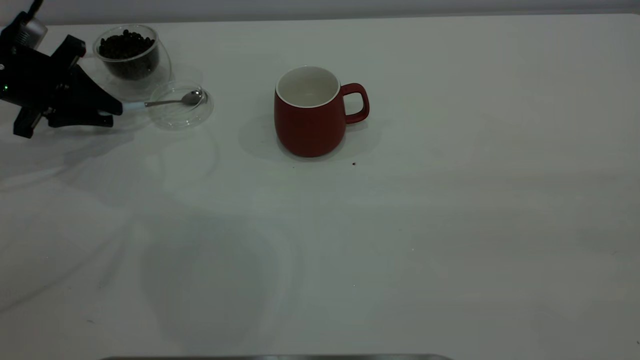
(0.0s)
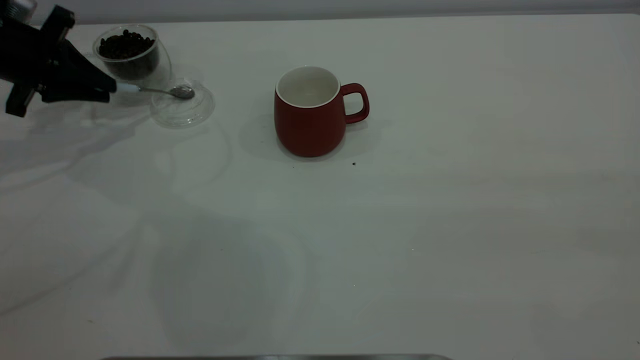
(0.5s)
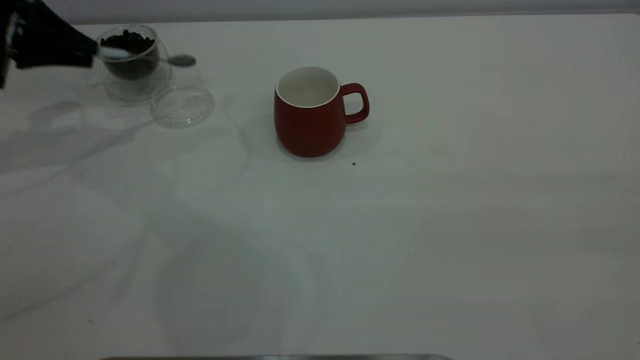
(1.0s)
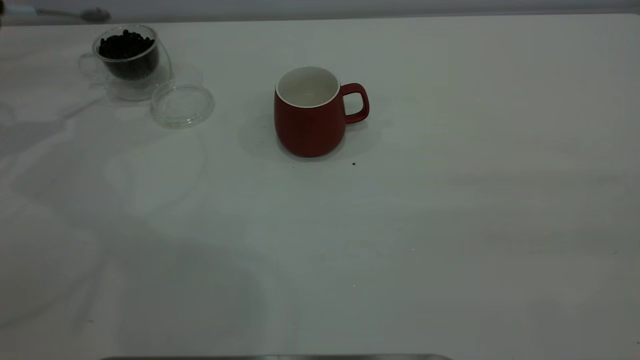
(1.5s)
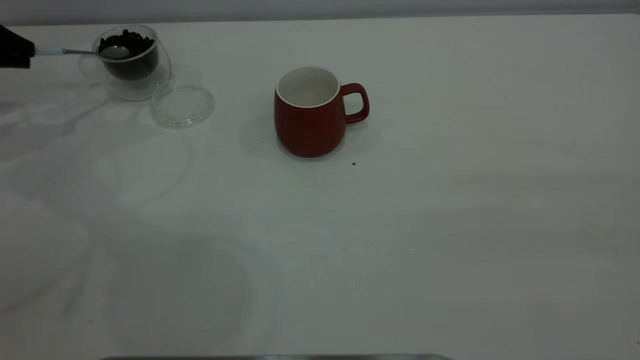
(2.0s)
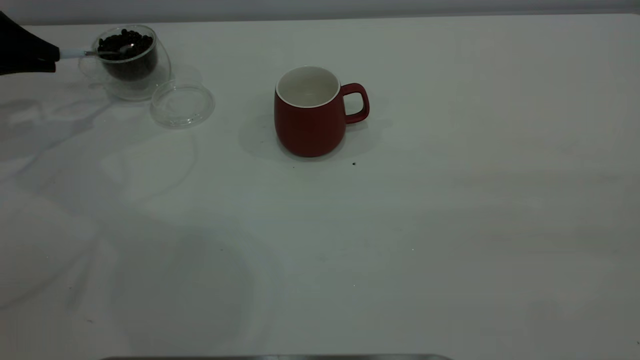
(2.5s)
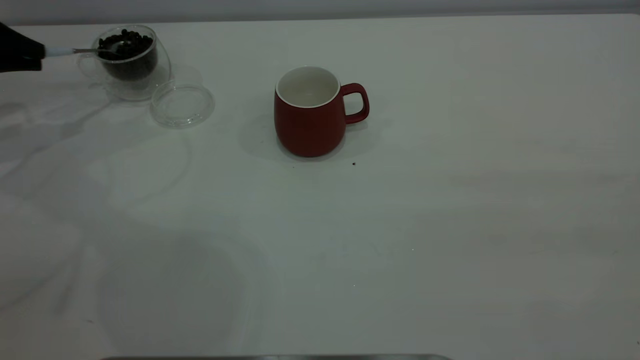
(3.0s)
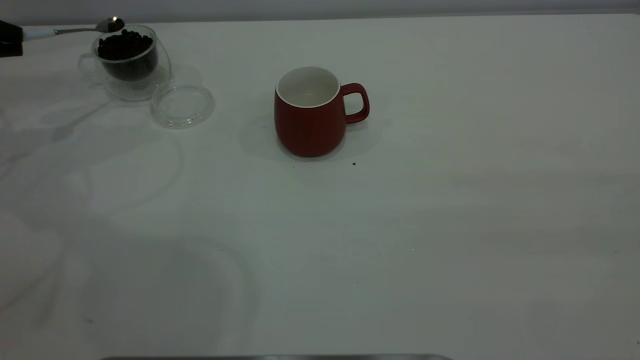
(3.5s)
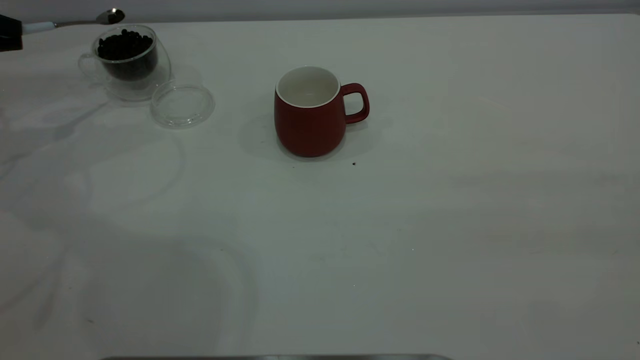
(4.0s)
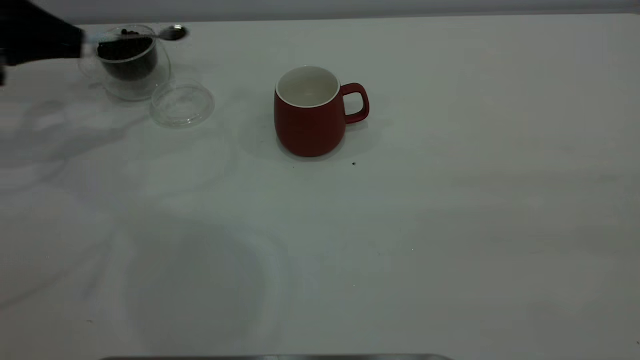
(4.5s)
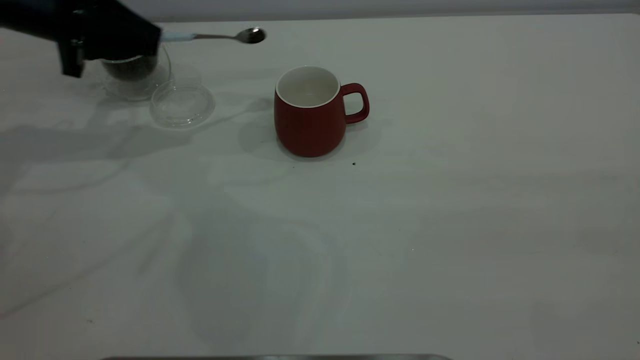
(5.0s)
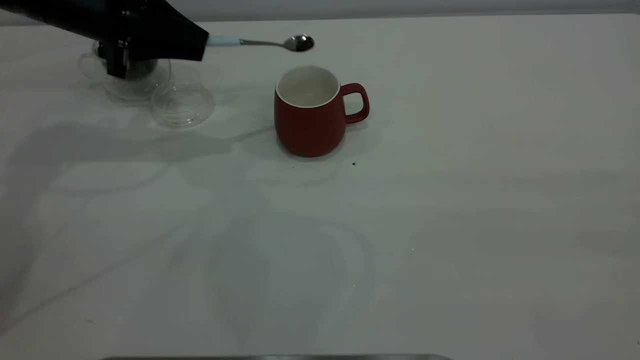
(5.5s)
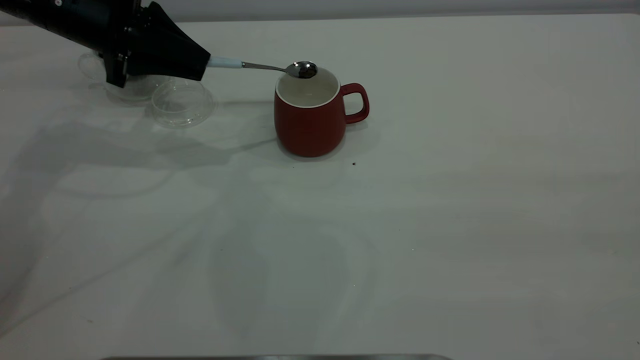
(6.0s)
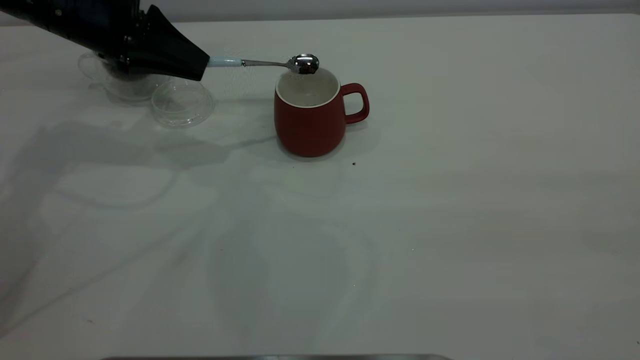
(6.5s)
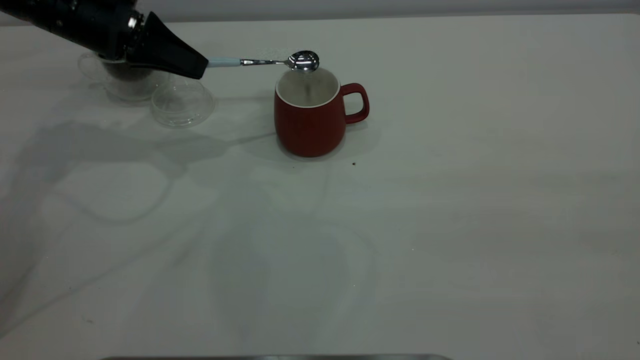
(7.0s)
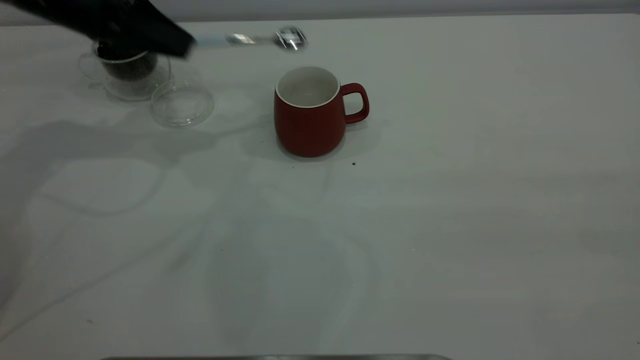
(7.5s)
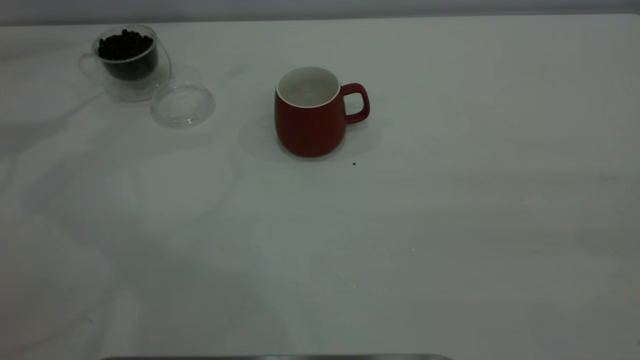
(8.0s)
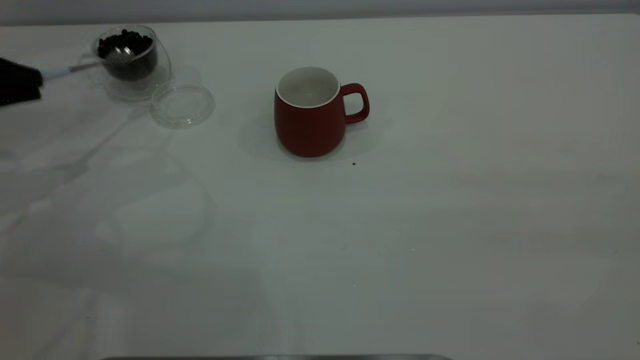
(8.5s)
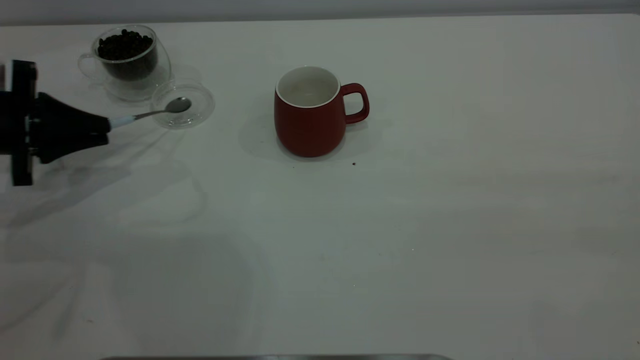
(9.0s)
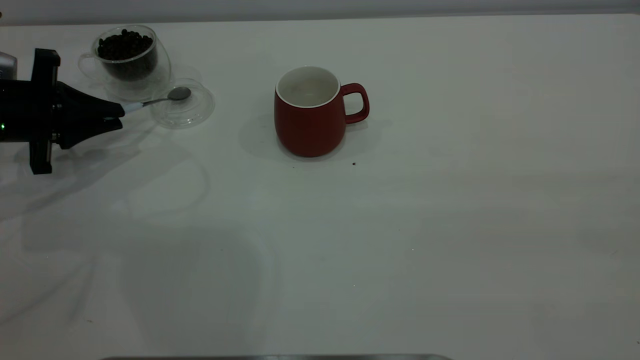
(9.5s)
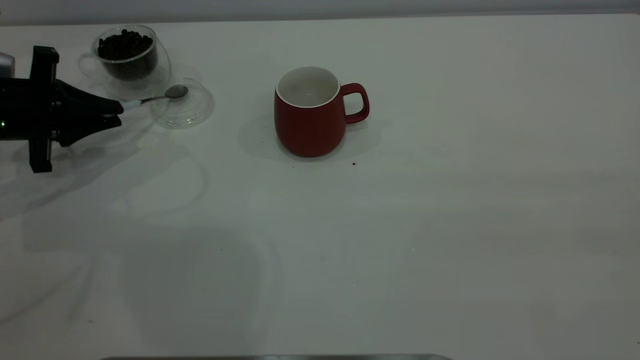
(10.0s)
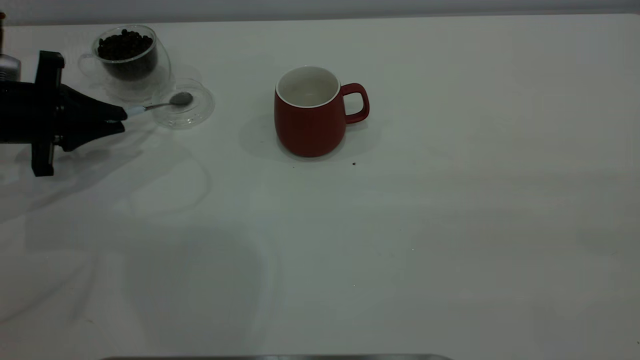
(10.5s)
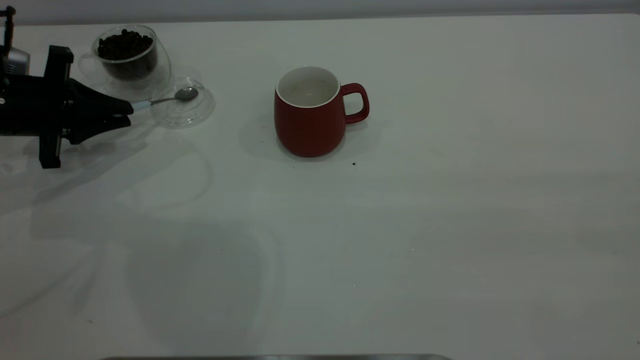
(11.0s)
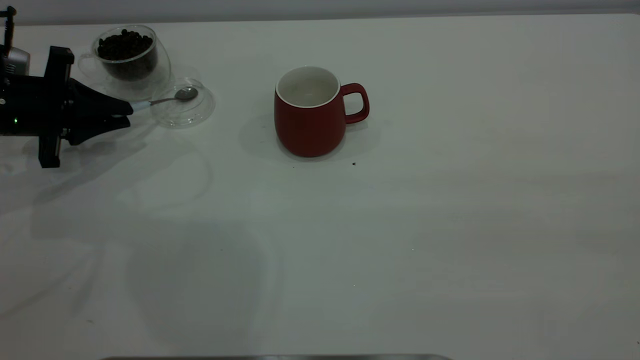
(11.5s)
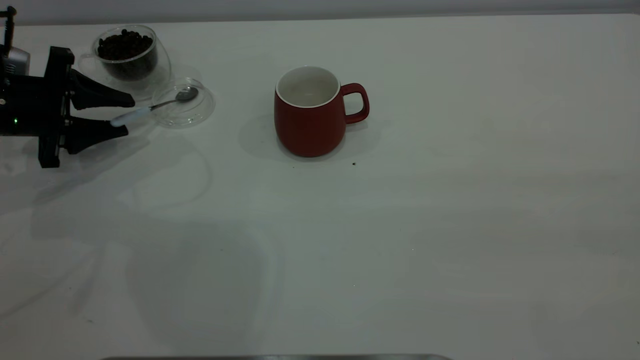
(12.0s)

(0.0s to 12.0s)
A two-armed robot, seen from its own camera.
Task of the whole recording: the right gripper place the red cup in the center of the table, the left gripper take the blue spoon from the cup lid and scoop out the coffee beans from the coffee cup and put them into the red cup, the left gripper put the spoon back into the cup lid.
Step, 1.0s - 7.0s: Scoop a spoonful of beans into the cup.
0.0s - 2.0s: The left gripper moves to the left and upward, approximately 10 cm.
4.0s - 6.0s: The left gripper is displaced to the right by approximately 20 cm.
6.0s - 8.0s: The left gripper shifts some 20 cm to the left and upward.
8.0s - 10.0s: The left gripper is displaced downward and to the right by approximately 20 cm.
10.0s - 12.0s: The left gripper opens its fingers.

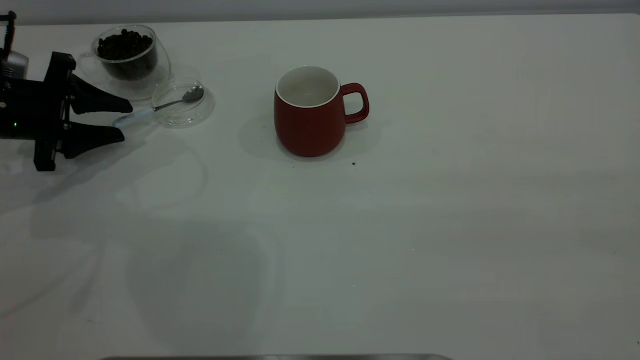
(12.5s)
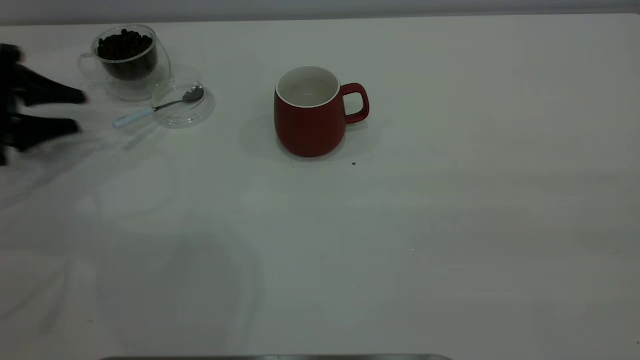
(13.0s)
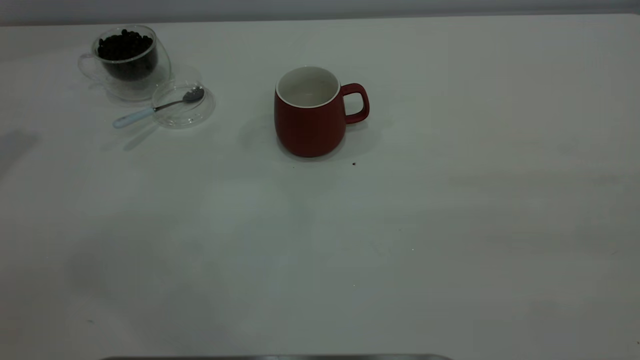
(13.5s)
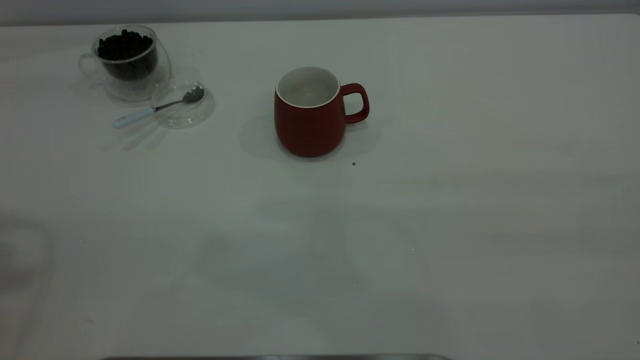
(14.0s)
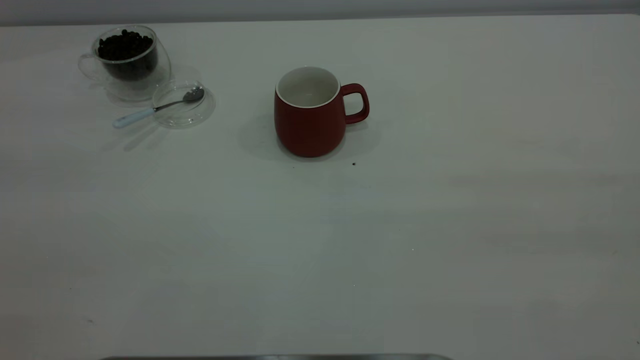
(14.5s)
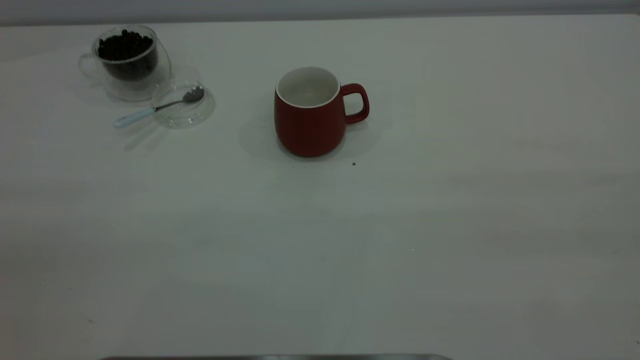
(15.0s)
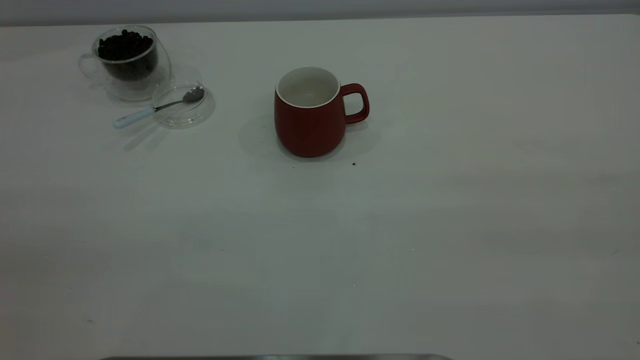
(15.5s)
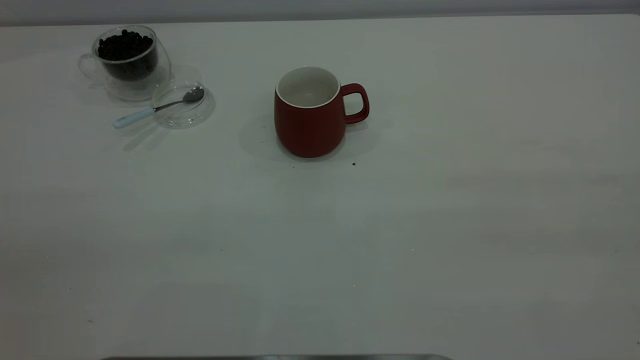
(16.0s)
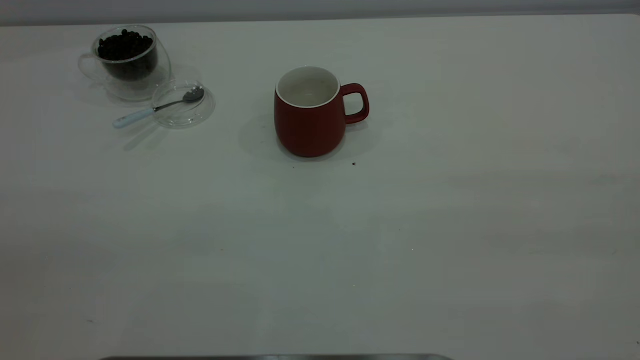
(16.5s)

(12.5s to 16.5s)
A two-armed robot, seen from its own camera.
Task of the whole recording: the right gripper place the red cup in the center of the table, the left gripper take the blue spoon from the cup lid and scoop out the coffee beans from the coffee cup and put them into the red cup, the left gripper put the spoon back into the cup lid.
12.5s - 14.5s: The left gripper is displaced upward and backward by some 50 cm.

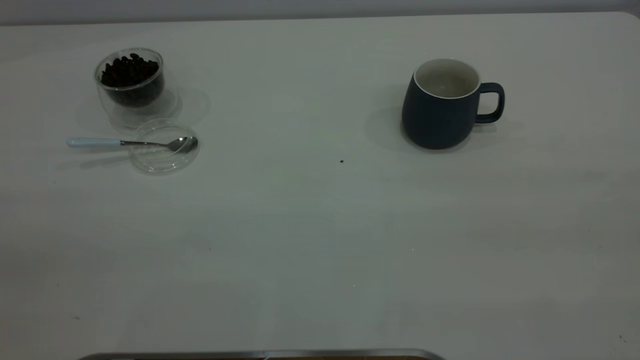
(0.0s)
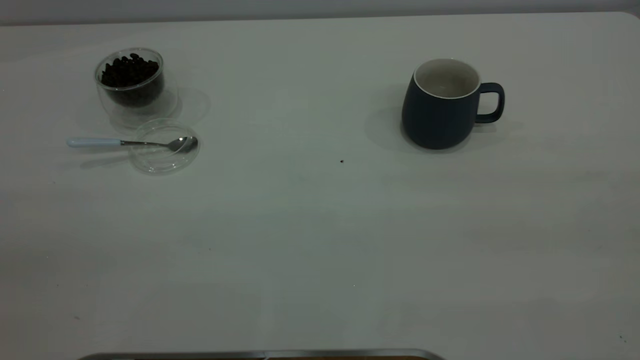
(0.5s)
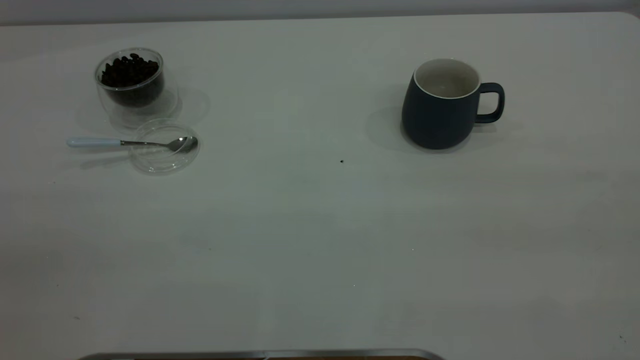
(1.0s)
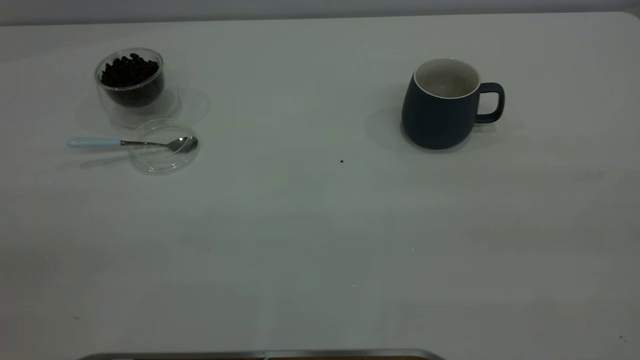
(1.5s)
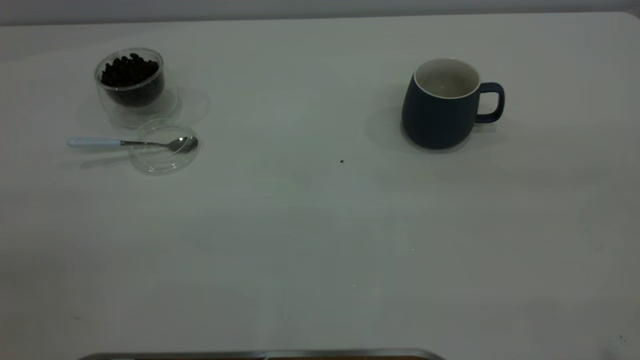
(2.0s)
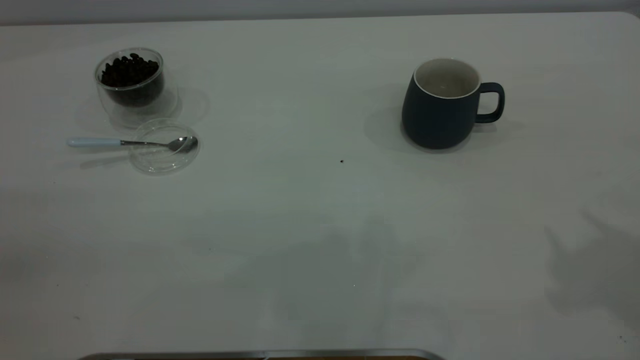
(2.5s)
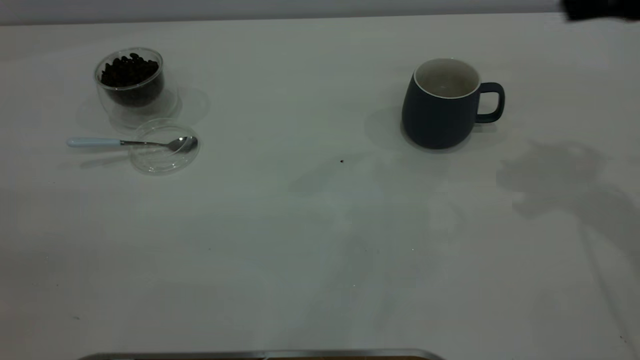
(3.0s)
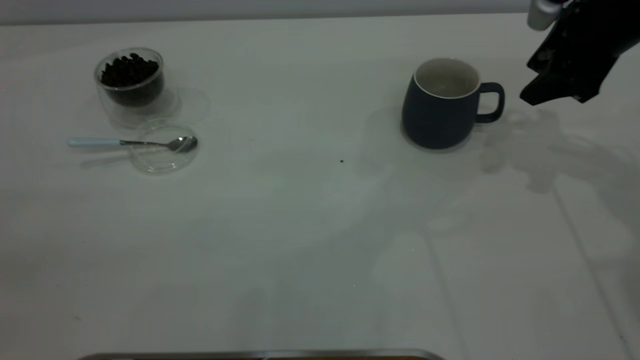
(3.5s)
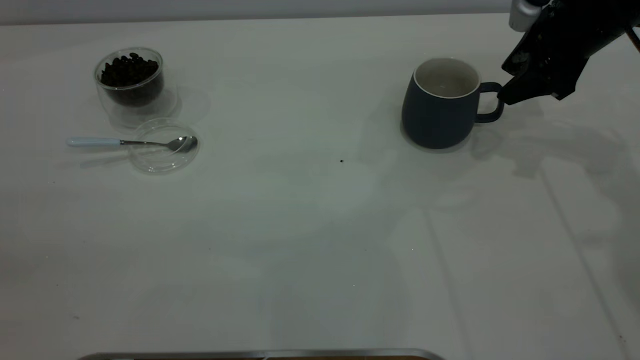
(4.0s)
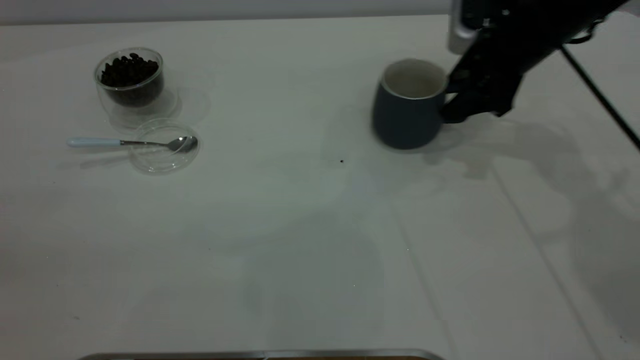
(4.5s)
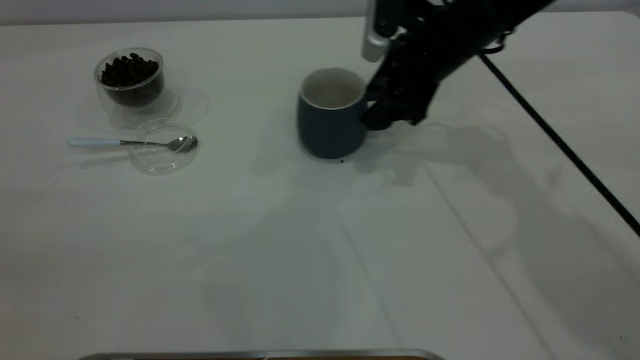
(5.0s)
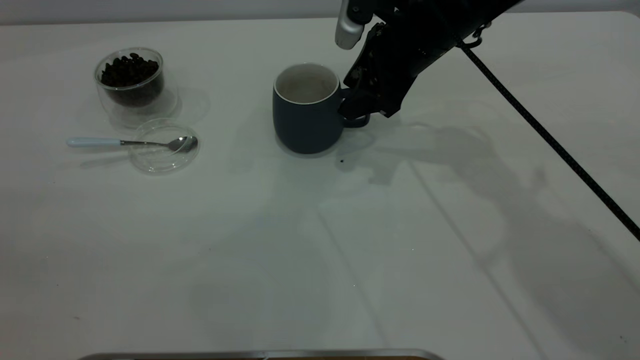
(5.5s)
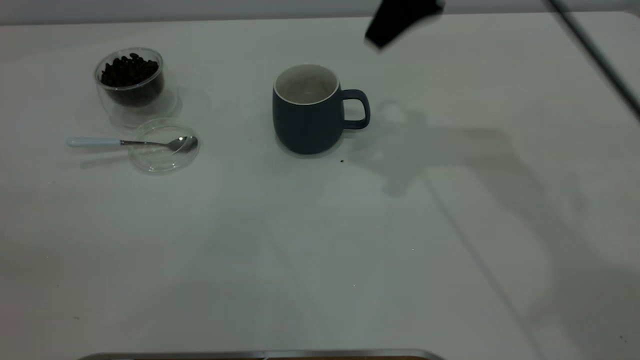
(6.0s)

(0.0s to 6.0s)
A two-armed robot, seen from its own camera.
Task of the whole recording: the right gripper place the grey cup in the center of the table, the left gripper take the blue spoon from the cup lid and scoop out the coffee beans from the coffee cup and put them into the grey cup, the left gripper put the spoon back into the cup lid.
Step, 0.0s - 5.5s: Move the cup to the center of view.
2.0s - 4.0s: The right gripper heads forward and downward, covering about 40 cm.
4.0s - 6.0s: The right gripper heads to the left and upward, covering some 20 cm.
